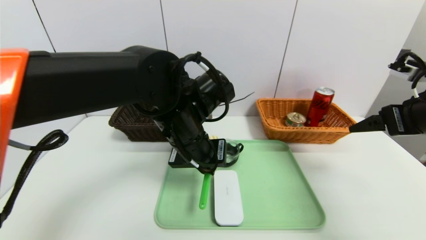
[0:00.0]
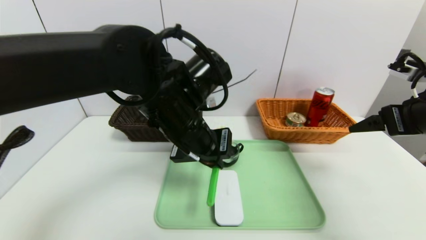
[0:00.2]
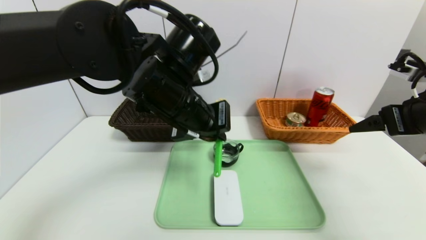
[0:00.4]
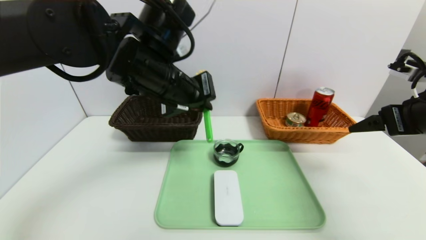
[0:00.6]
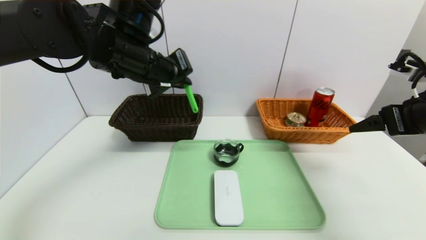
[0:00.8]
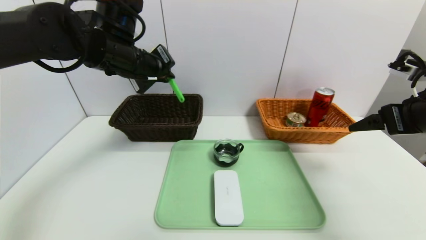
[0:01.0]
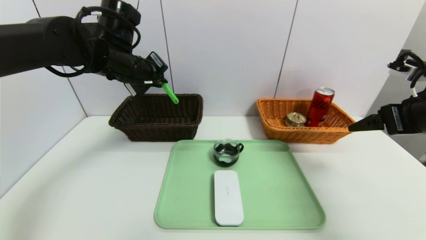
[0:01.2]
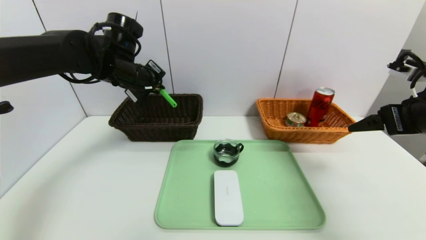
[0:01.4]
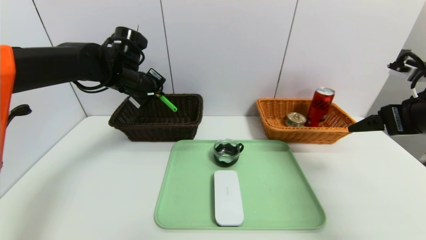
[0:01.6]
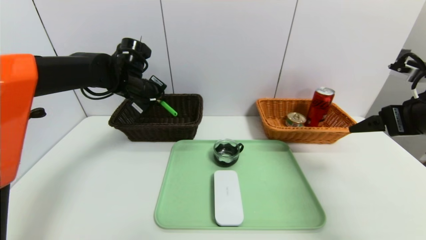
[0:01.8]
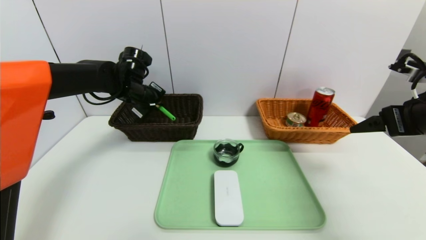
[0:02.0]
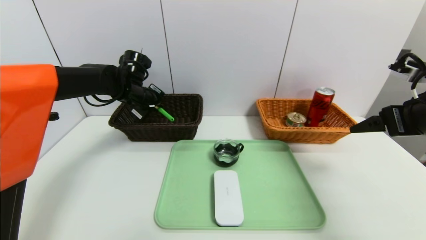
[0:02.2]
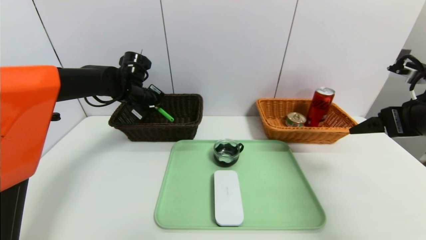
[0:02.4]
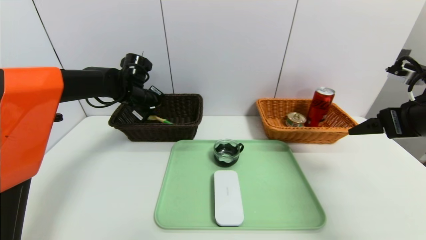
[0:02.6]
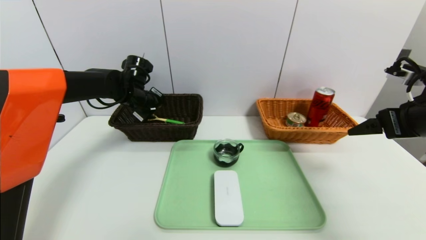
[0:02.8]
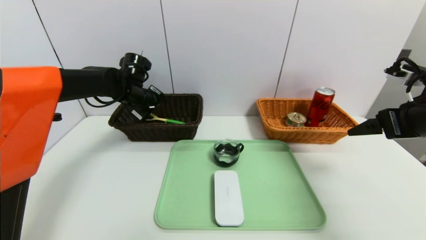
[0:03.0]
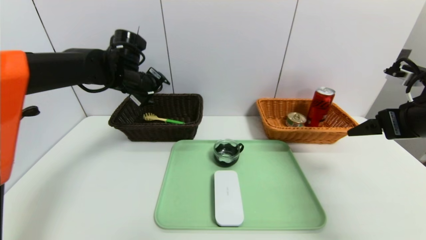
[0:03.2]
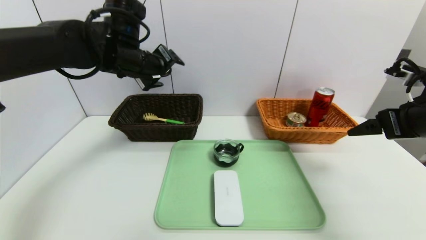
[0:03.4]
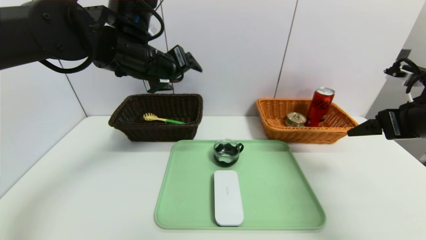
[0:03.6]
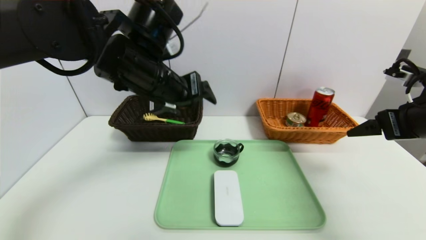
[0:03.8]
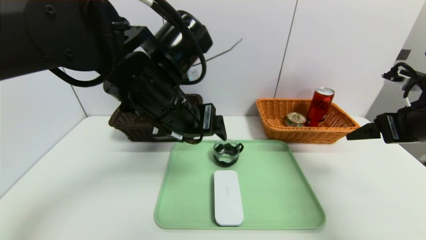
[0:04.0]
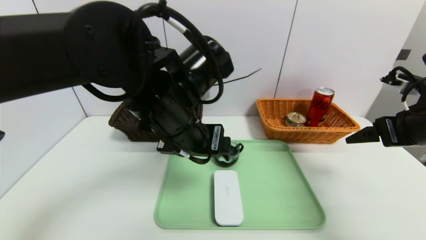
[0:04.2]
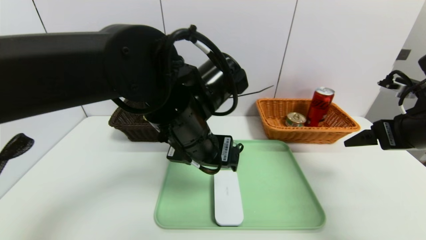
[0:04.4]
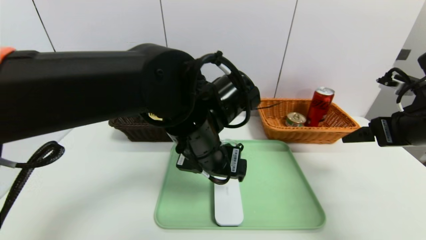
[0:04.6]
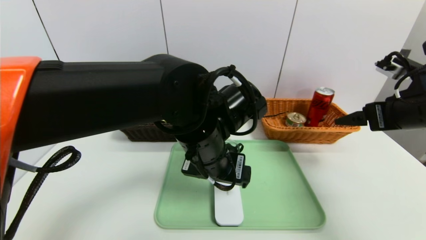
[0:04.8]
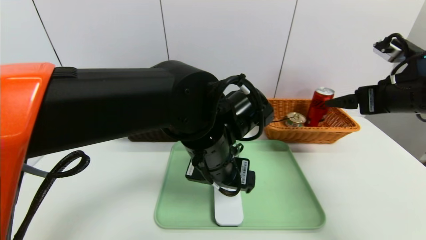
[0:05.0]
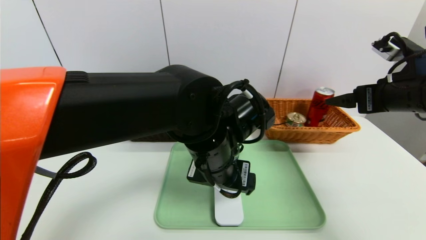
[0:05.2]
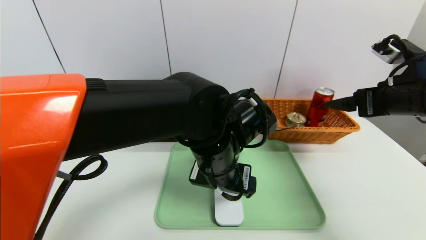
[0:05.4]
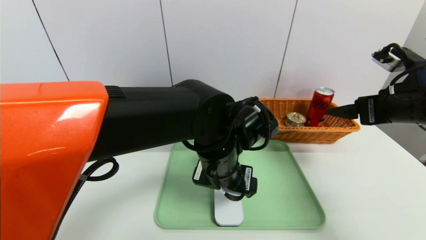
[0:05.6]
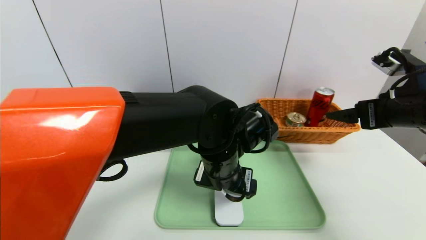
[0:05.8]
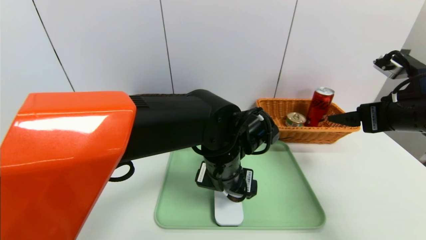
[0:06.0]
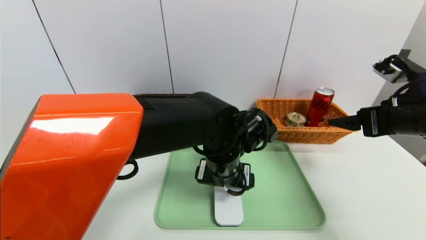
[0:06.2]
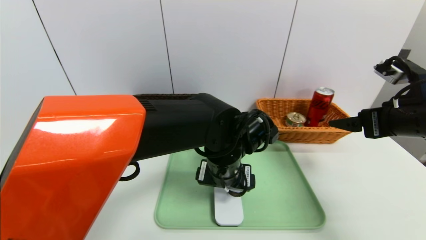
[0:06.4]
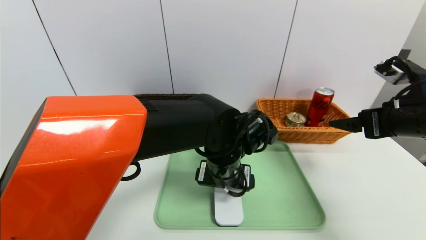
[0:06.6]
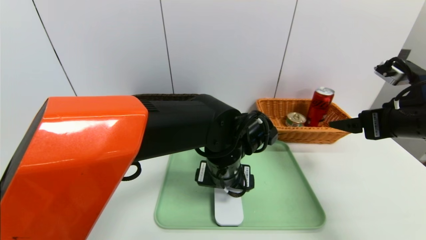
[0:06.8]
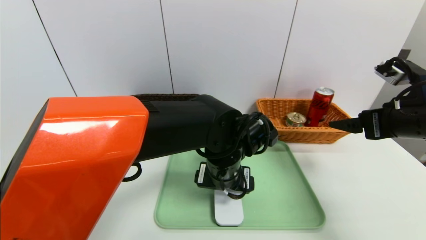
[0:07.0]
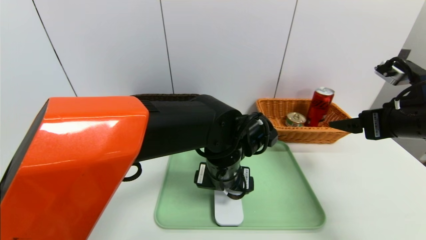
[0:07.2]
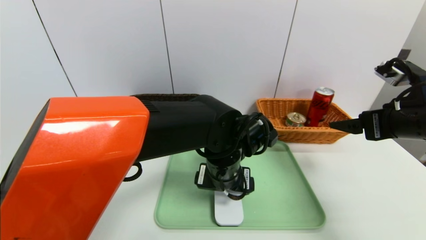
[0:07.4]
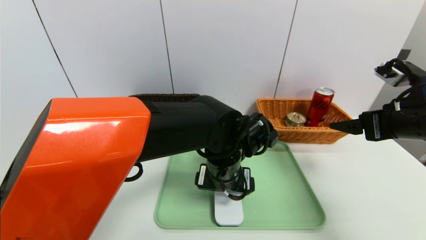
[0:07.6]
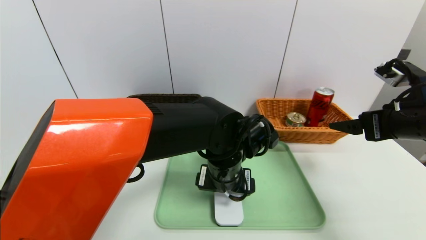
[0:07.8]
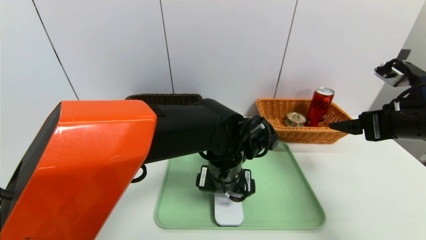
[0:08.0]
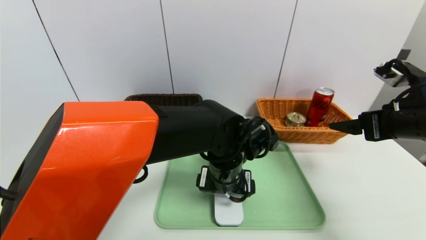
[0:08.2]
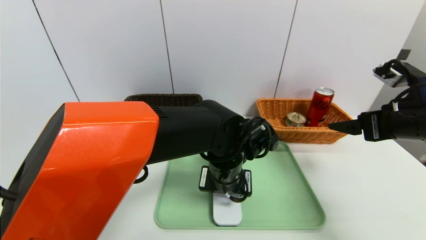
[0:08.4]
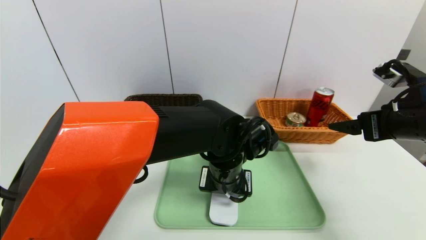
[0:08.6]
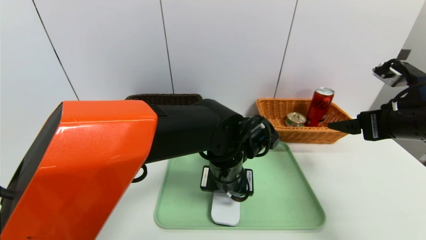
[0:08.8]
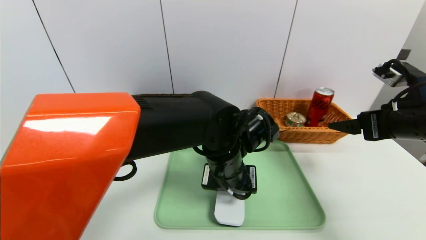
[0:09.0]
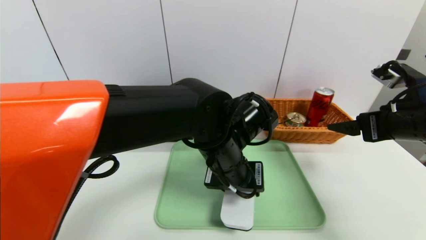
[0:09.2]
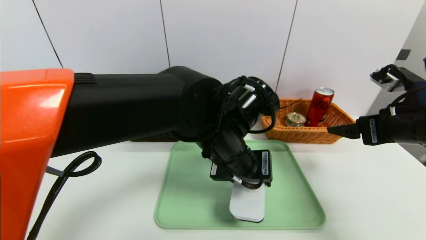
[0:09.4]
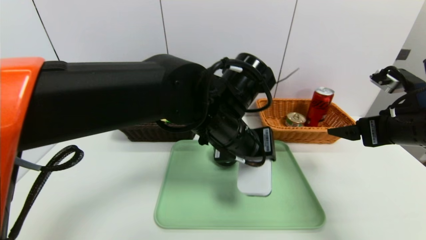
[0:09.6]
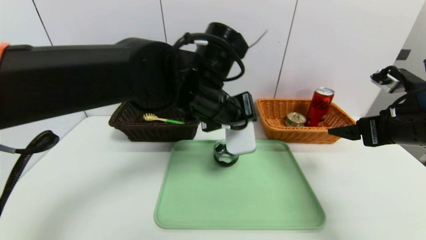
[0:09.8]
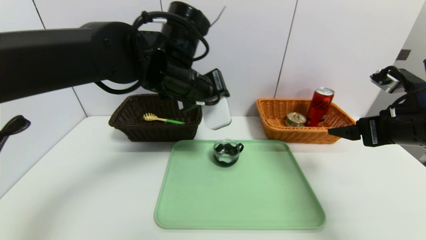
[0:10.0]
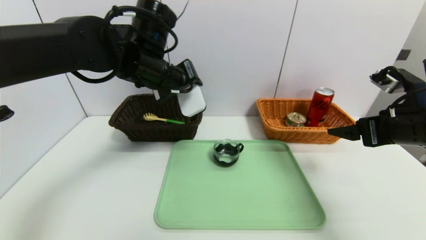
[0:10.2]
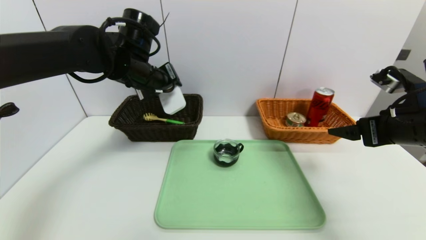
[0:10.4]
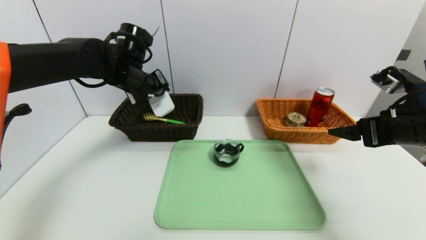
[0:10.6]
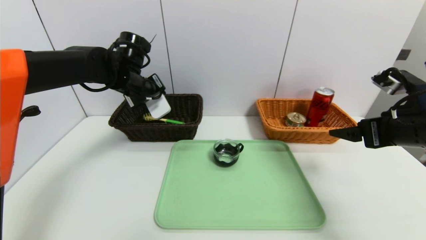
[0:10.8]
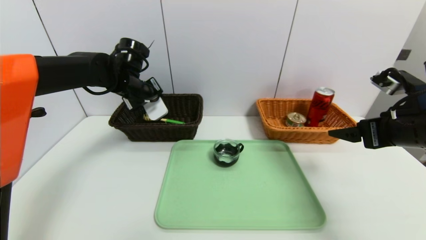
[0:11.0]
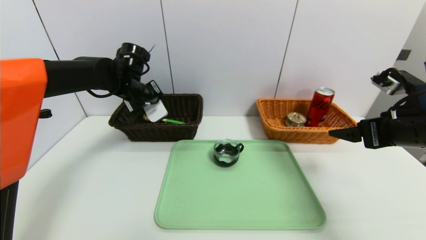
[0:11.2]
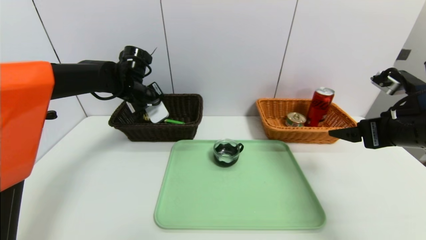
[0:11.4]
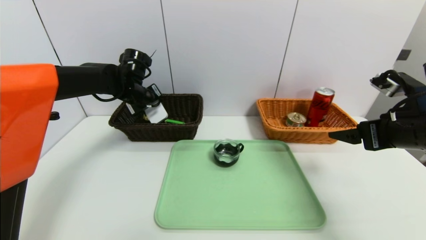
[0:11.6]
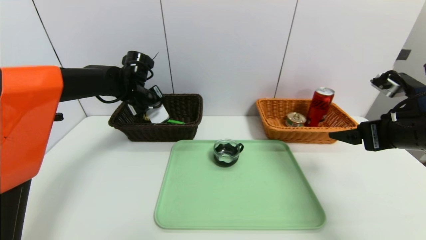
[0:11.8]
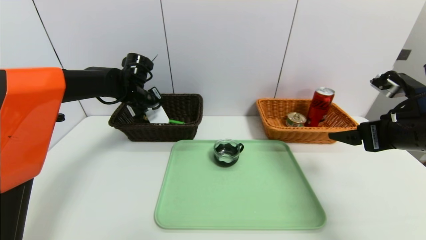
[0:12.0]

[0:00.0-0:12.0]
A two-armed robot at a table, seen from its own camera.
Task of the whole recording: place the food in the right basket with the right gripper, and place the non food items in the left basket with the left gripper.
Step, 0:00.0 to 0:03.0: Grasp the back scratcher and put it in the left basket.
0:00.0 to 0:01.6: The left gripper heads forward and to the left, covering approximately 20 cm.
0:01.6 to 0:03.0: The left gripper ends up some 5 cm from where it was, and opens.
0:03.0 to 0:04.4: The left gripper shifts about 25 cm backward and to the right.
0:04.4 to 0:06.0: The left gripper is displaced downward and to the right by some 10 cm.
0:06.0 to 0:07.6: The grippers make only small movements.
0:07.6 to 0:09.0: The left gripper closes.
0:09.0 to 0:10.4: The left gripper moves to the left, forward and upward, approximately 25 cm.
0:10.4 to 0:12.0: The left gripper is displaced downward and forward by approximately 10 cm.

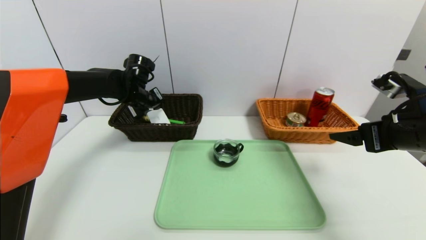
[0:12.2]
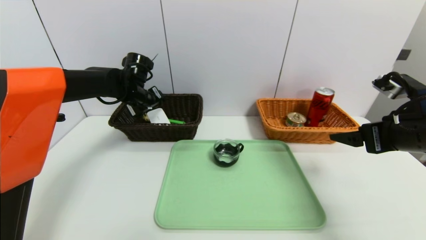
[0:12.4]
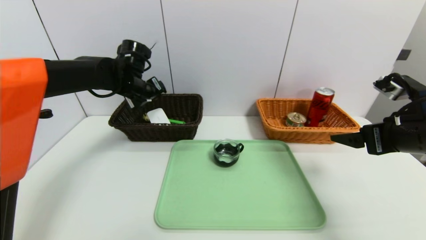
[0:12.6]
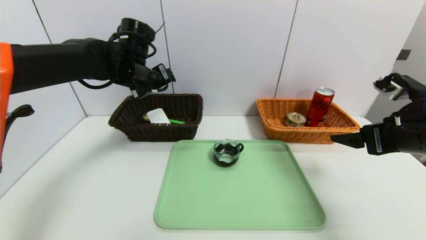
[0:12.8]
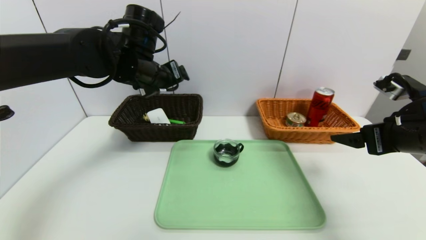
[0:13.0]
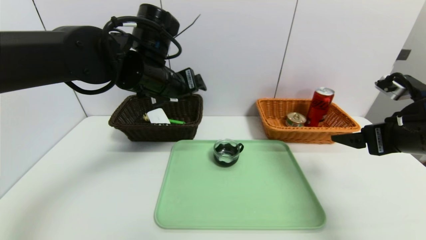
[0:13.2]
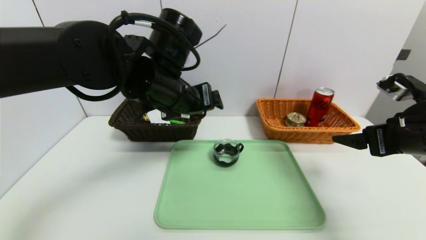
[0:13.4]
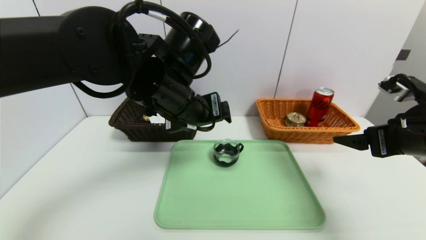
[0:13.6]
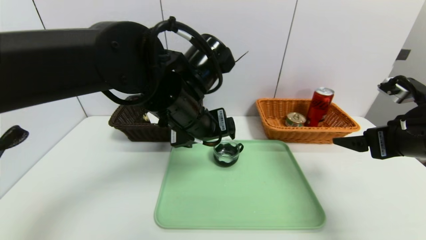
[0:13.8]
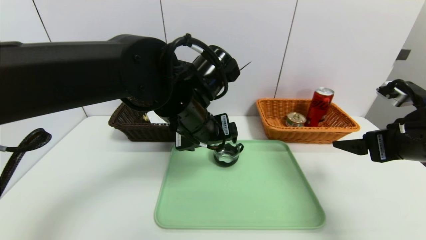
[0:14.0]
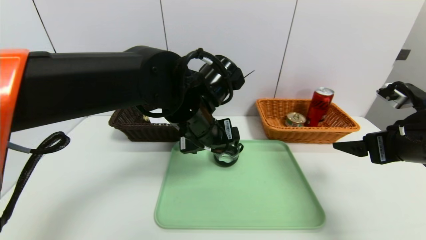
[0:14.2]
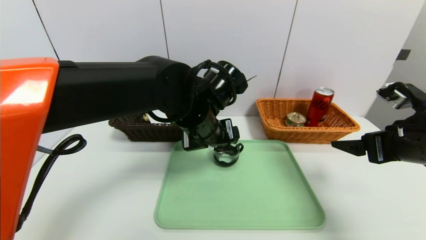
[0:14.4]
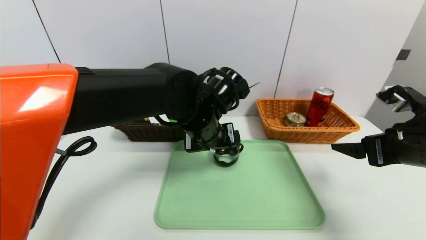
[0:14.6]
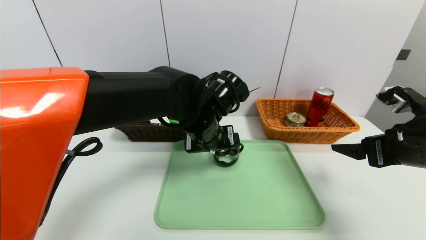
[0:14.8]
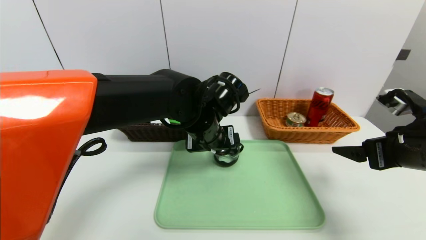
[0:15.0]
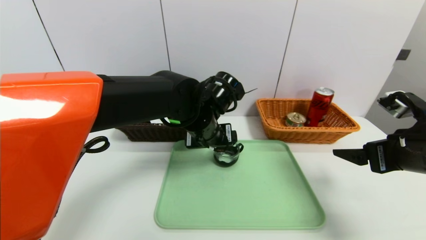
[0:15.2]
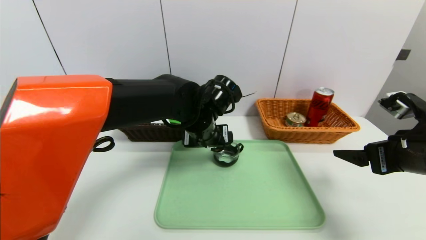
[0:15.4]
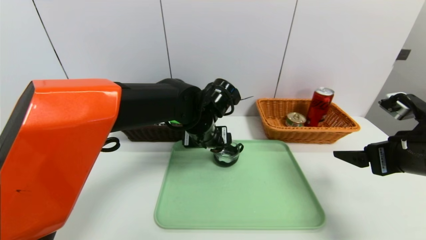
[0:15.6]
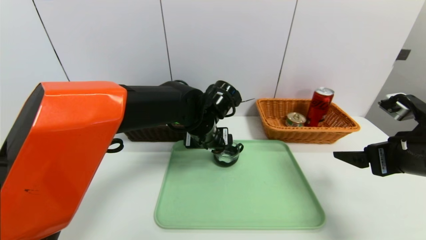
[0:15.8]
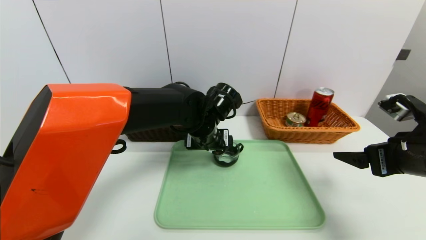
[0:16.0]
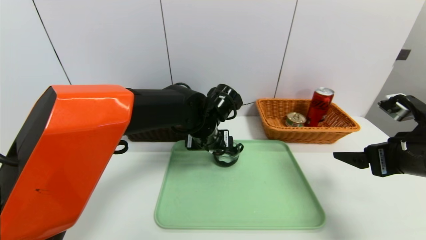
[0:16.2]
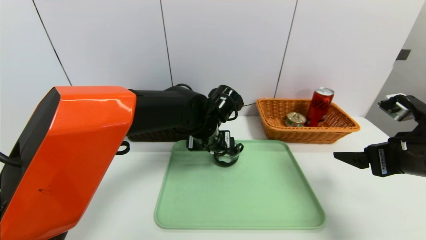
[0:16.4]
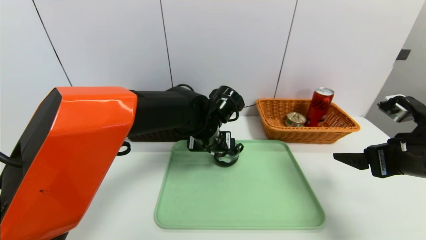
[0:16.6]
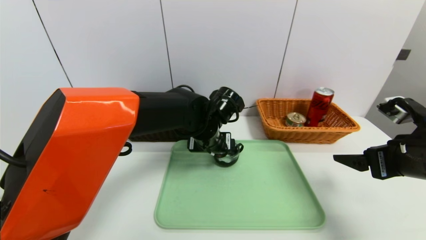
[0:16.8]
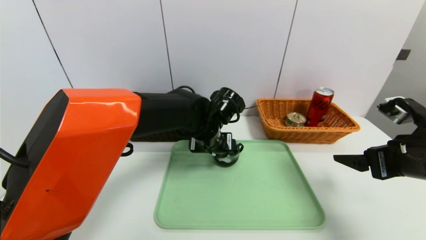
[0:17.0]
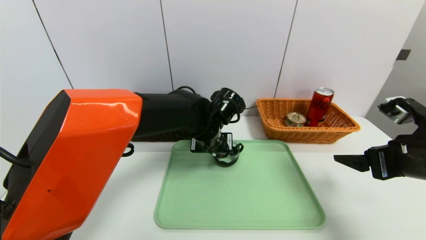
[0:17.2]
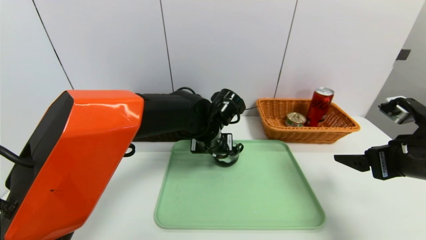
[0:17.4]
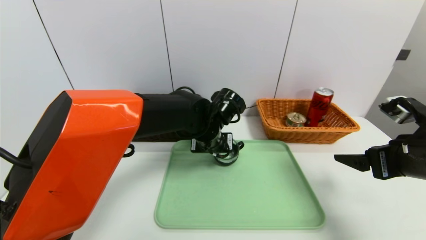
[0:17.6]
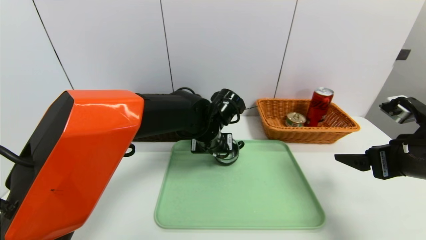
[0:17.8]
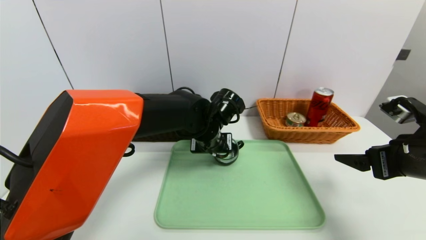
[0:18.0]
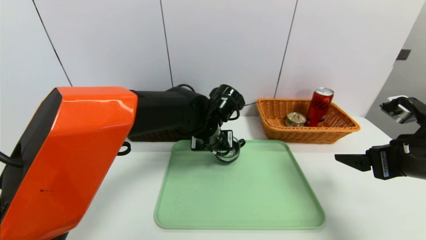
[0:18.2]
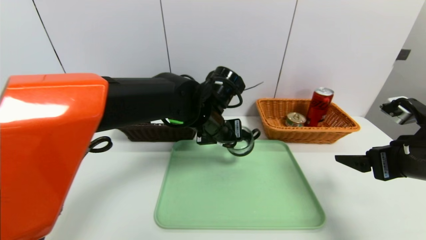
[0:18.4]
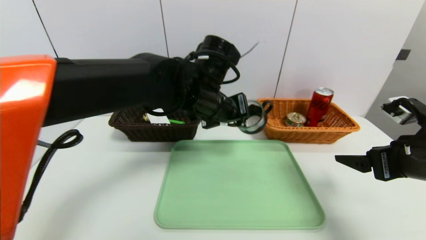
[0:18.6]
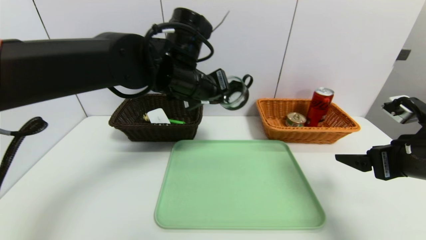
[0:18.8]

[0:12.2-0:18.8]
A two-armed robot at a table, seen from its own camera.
Task of the whole recording: place the food in the right basket with the right gripper, and place the non food items in the left basket with the left gripper.
0:12.2 to 0:13.8: The left gripper shifts about 25 cm backward and to the right.
0:13.8 to 0:15.4: The left gripper heads downward and forward, covering some 10 cm.
0:15.4 to 0:17.2: The left gripper closes.
0:17.2 to 0:18.8: The left gripper moves upward, about 15 cm, and closes up.
